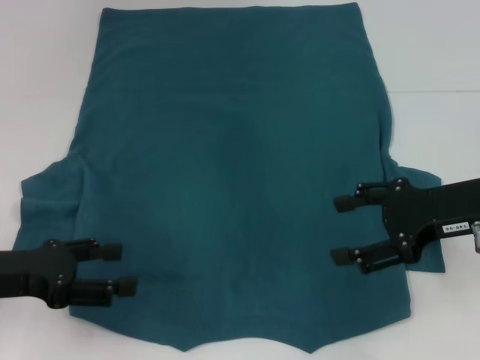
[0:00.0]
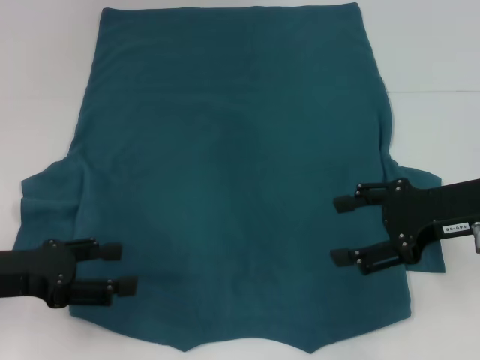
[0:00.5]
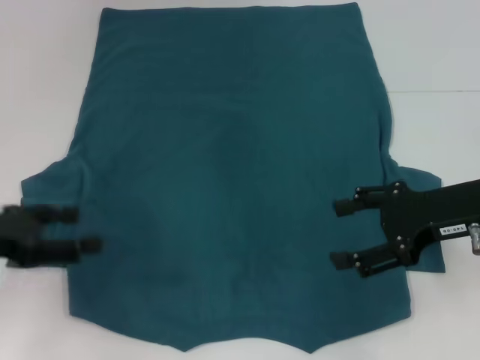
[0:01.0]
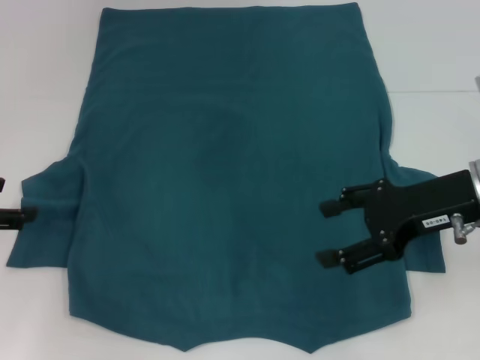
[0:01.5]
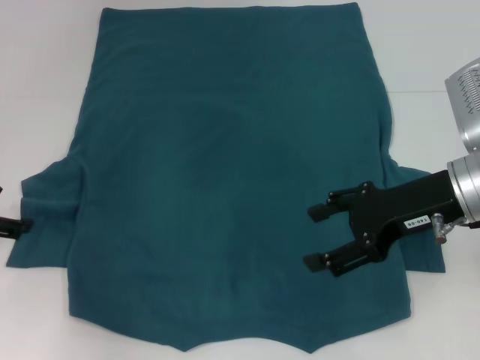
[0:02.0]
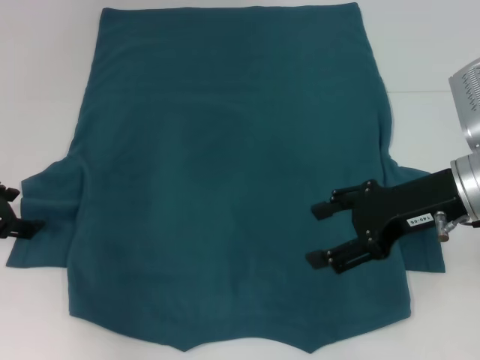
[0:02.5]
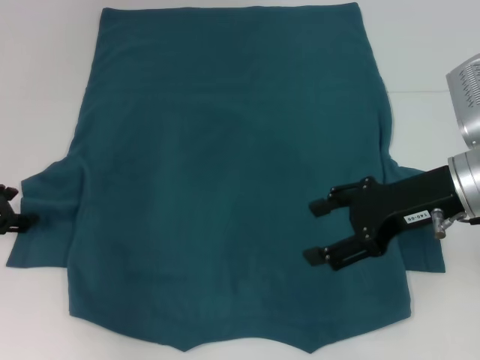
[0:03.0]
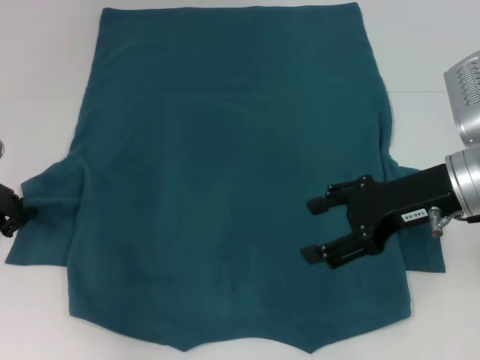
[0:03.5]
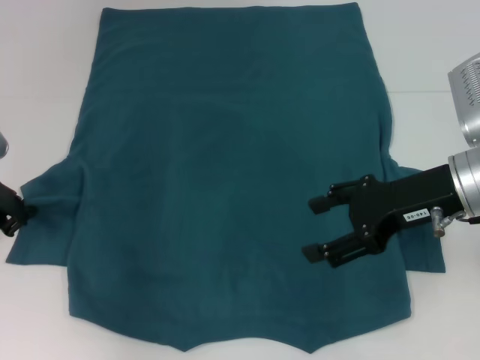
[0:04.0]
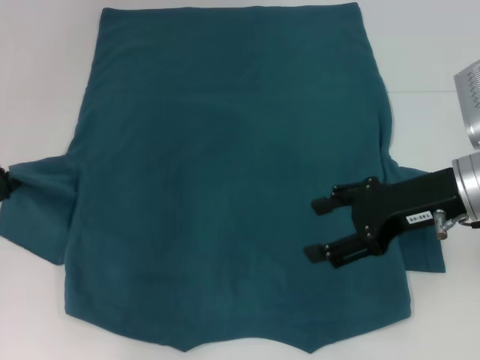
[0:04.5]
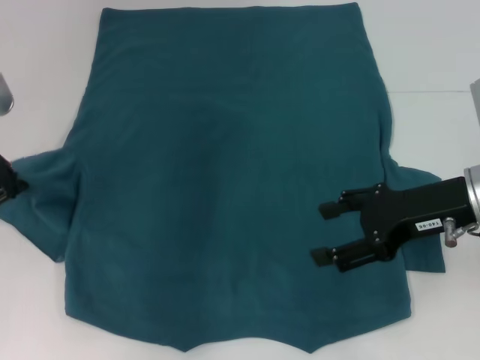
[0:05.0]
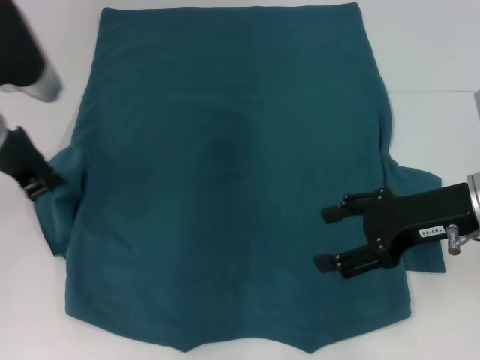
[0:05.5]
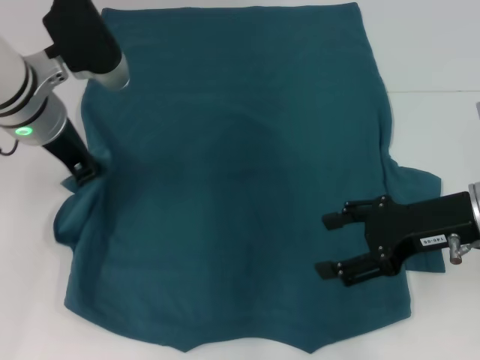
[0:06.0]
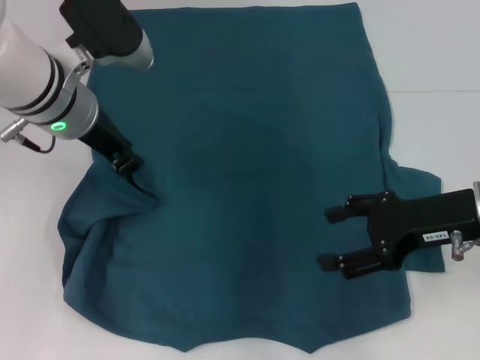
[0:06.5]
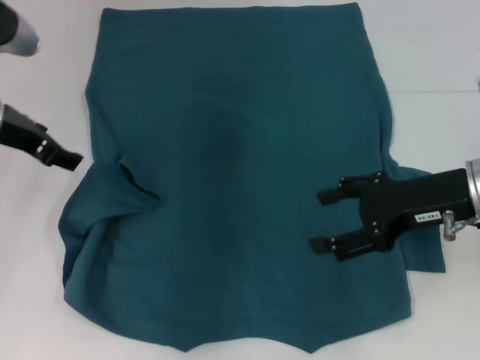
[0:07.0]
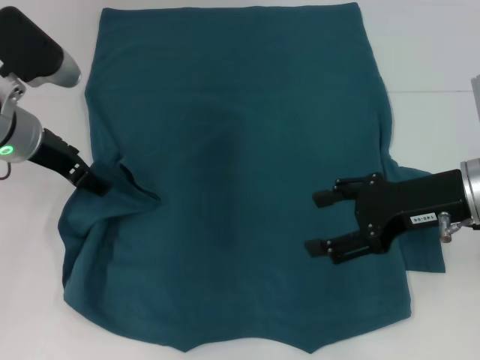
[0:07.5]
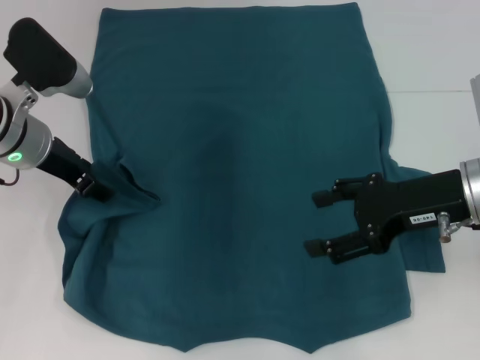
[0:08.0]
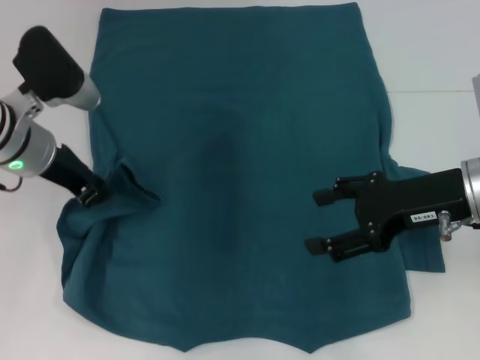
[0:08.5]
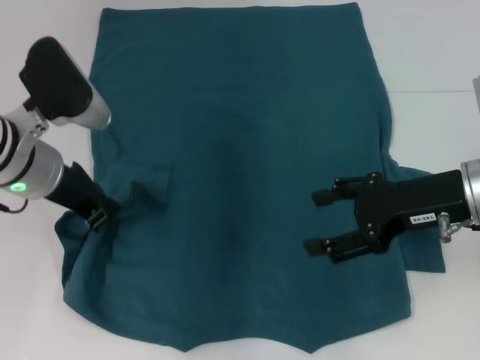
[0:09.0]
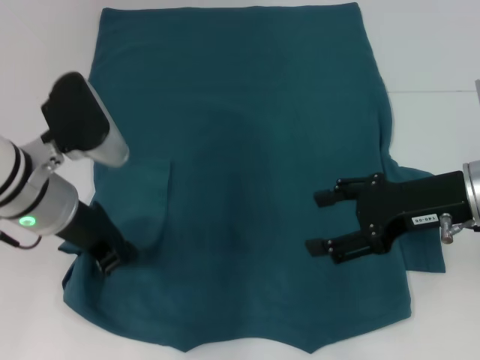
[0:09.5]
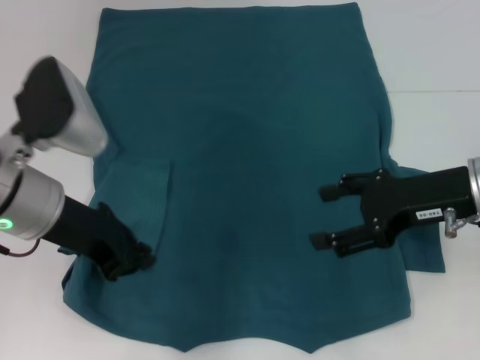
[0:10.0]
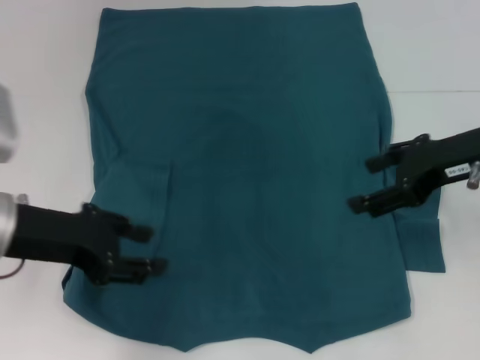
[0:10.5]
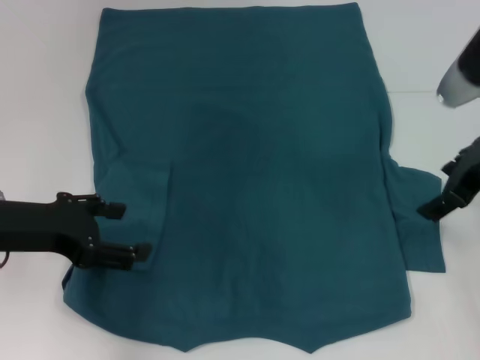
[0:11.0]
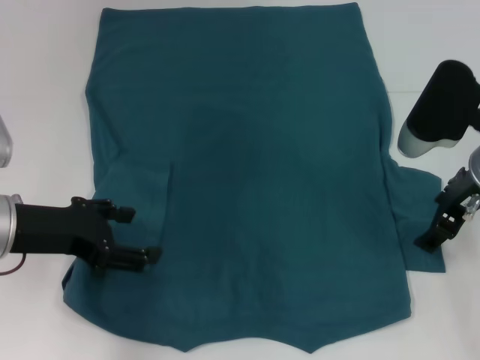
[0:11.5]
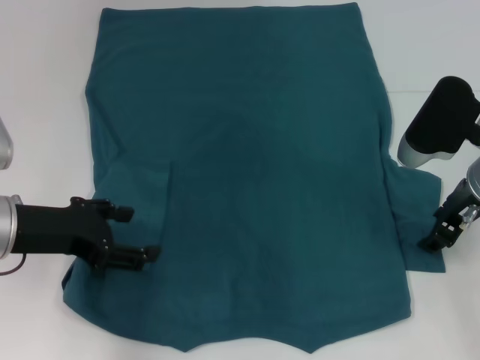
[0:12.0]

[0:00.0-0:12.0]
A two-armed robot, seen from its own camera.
Step, 0:00.0 to 0:10.0: Fold the bottom left sleeve with your left hand.
0:00.0 to 0:02.0: The left gripper heads forward and to the left, covering about 10 cm.
0:02.0 to 0:04.0: The left gripper changes place by approximately 5 cm, and closes up.
0:04.0 to 0:06.0: The left gripper goes about 15 cm to the right and upward.
0:06.0 to 0:08.0: The left gripper heads downward, covering some 5 cm, and opens up.
0:08.0 to 0:10.0: The left gripper goes roughly 10 cm backward, and closes.
0:10.0 to 0:12.0: The left gripper heads to the left, covering some 5 cm, and opens up.

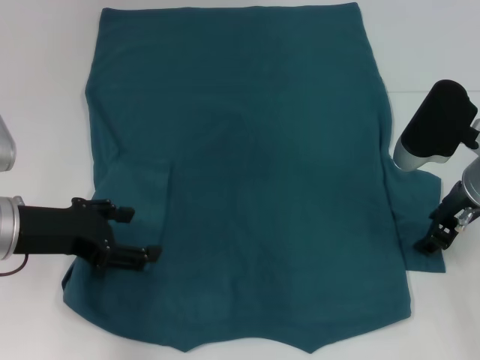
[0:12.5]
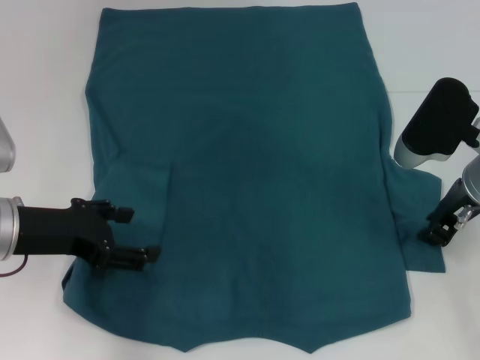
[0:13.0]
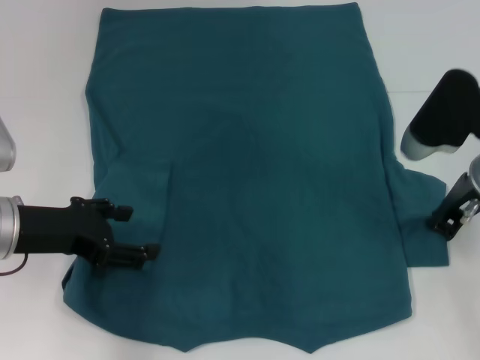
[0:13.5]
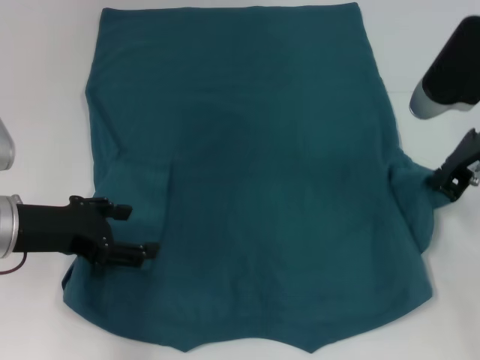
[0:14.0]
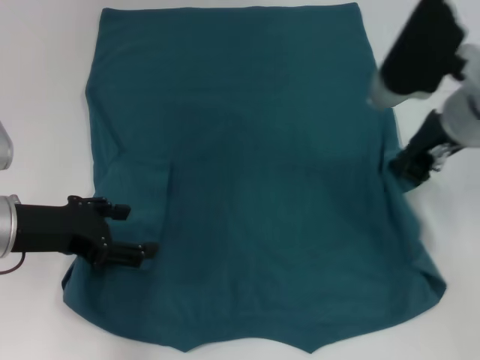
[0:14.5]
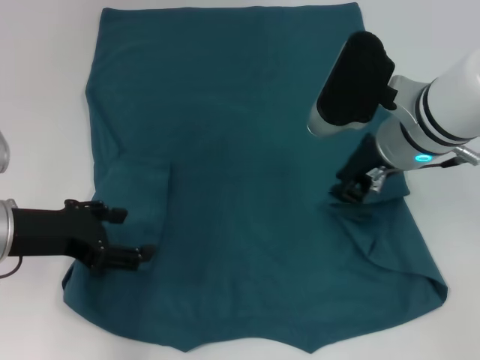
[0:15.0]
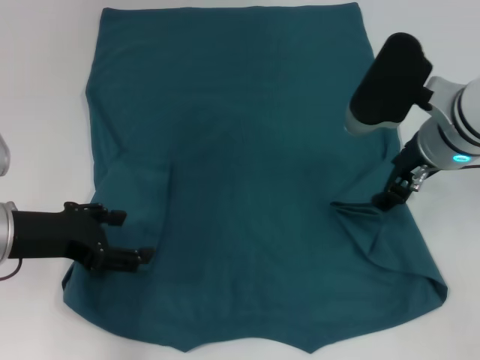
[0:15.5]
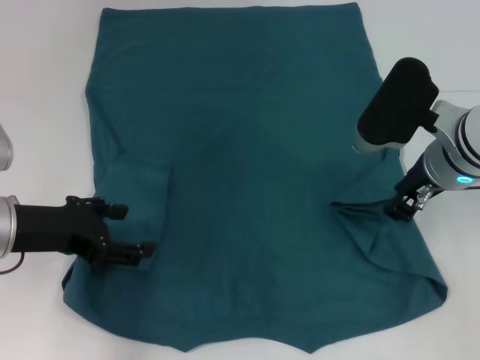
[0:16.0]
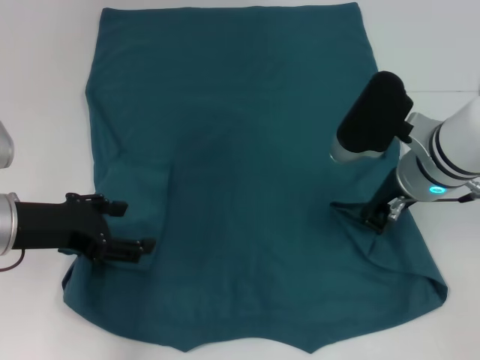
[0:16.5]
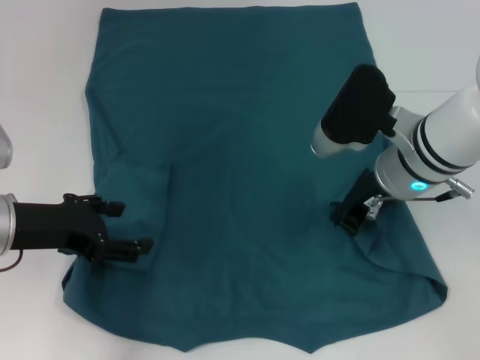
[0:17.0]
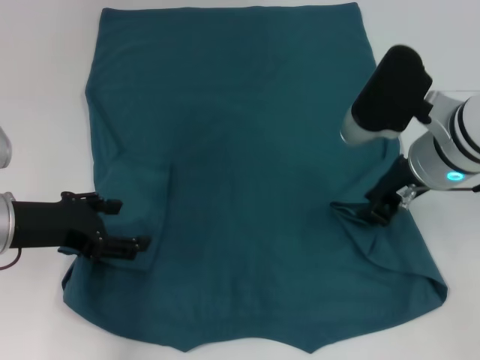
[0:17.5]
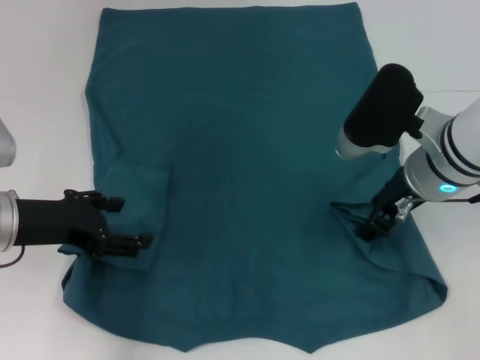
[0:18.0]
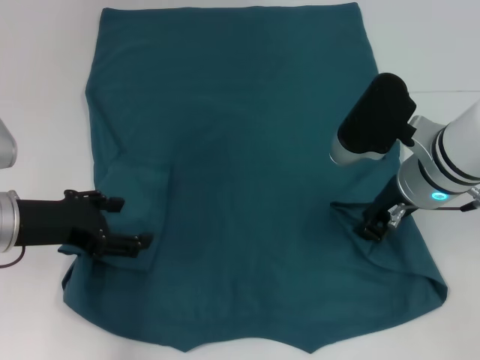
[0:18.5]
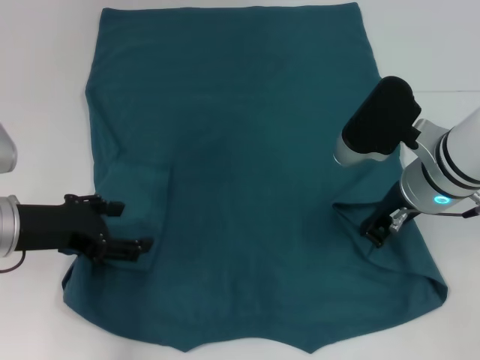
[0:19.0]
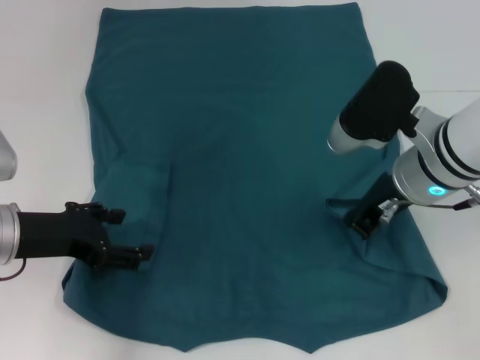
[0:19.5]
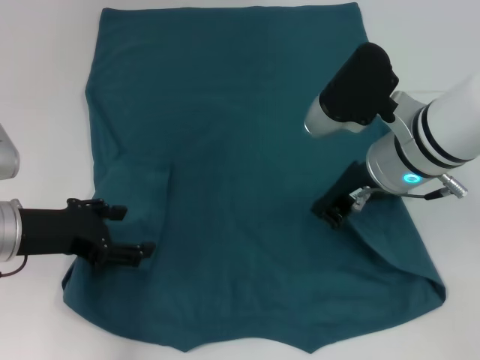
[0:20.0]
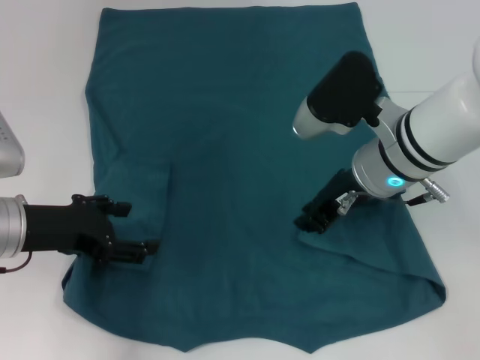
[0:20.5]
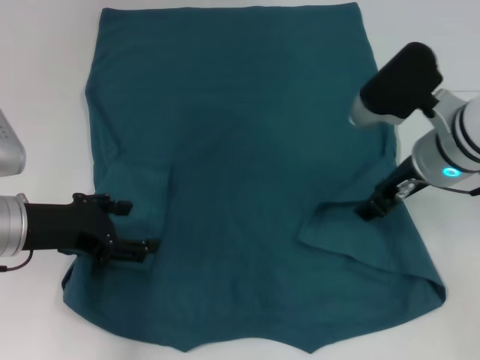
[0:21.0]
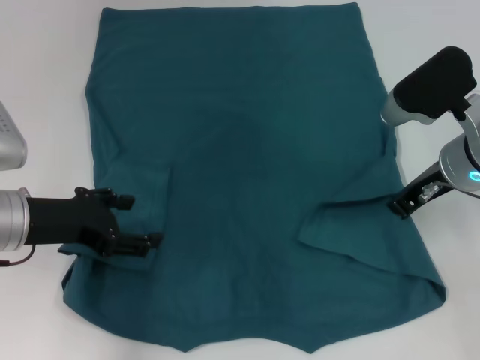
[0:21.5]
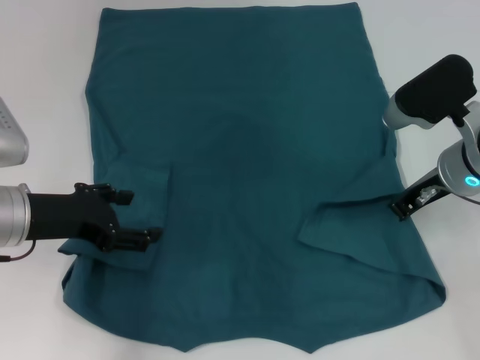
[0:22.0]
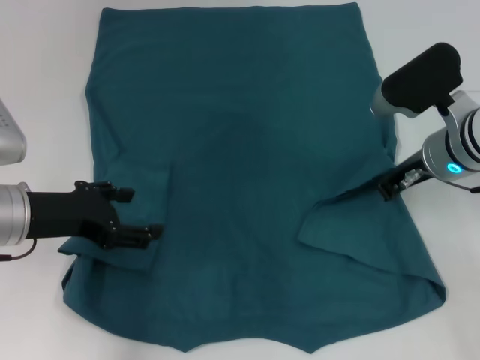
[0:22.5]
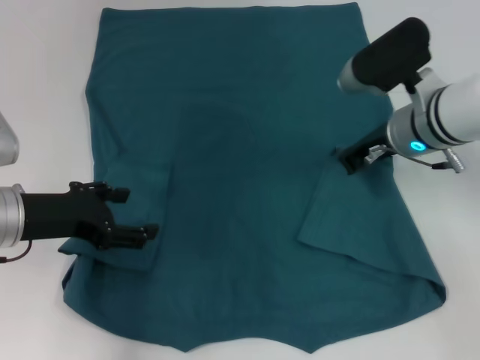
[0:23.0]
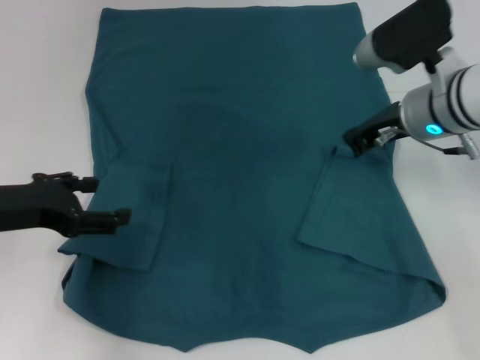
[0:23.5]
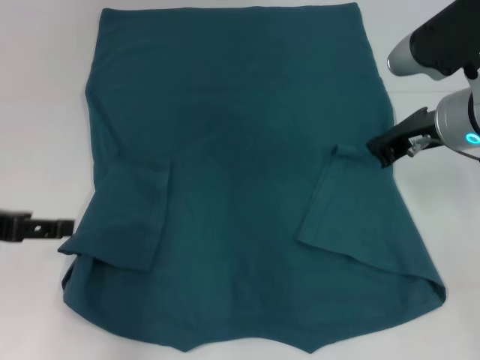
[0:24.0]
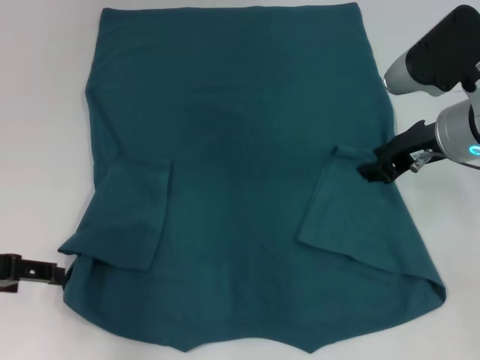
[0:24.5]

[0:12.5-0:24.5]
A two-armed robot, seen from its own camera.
Step, 0:12.5 to 0:24.0: Fold the bottom right sleeve to the right.
0:12.5 to 0:14.5: The right gripper goes approximately 5 cm upward, and closes up.
0:14.5 to 0:16.5: The right gripper goes about 5 cm downward, and opens, then closes once more.
0:16.5 to 0:18.5: The right gripper opens its fingers.
0:18.5 to 0:20.5: The right gripper closes.
0:20.5 to 0:22.5: The right gripper shifts approximately 10 cm to the right, and opens, then closes once more.
0:22.5 to 0:24.5: The right gripper moves some 5 cm, while the left gripper is displaced to the left and backward by roughly 10 cm.

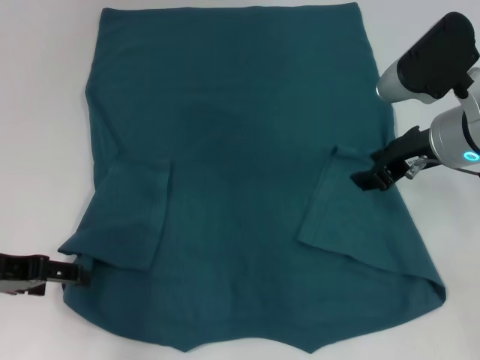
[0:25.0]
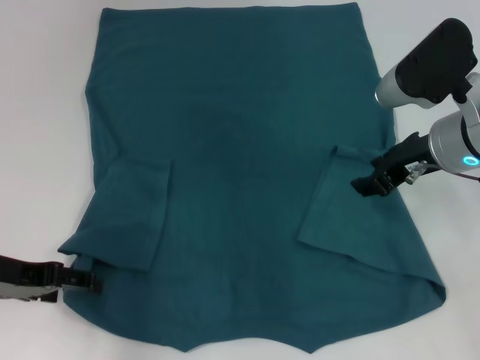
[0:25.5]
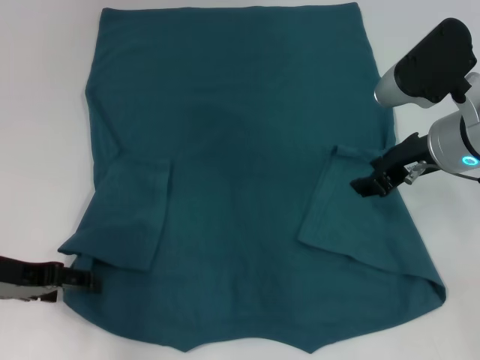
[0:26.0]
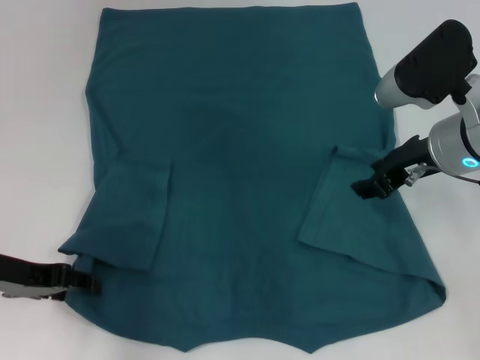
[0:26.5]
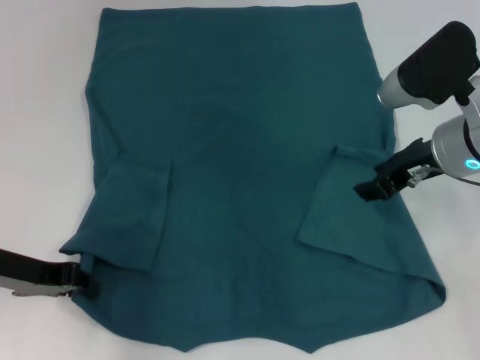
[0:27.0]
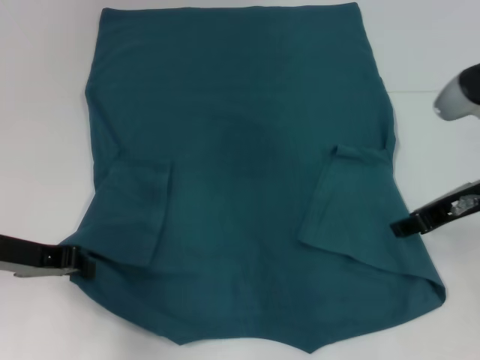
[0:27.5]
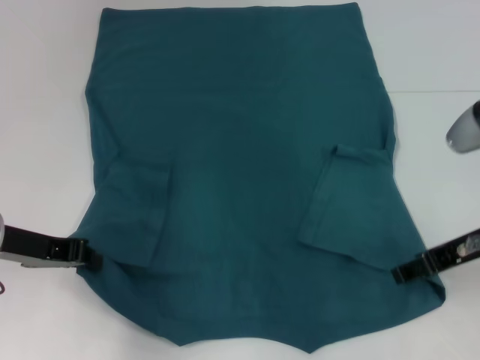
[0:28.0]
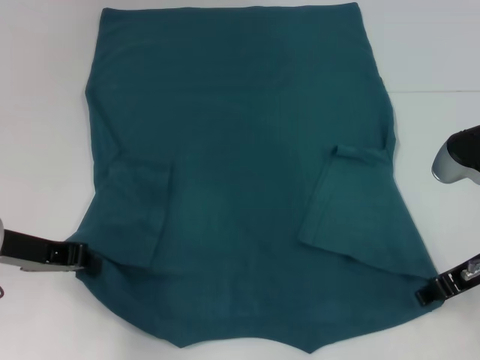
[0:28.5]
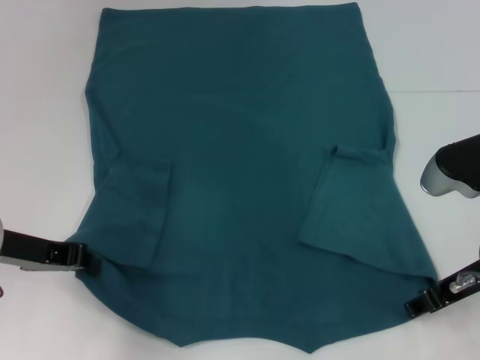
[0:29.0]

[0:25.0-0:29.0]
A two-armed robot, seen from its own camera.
Step, 0:25.0 to 0:27.5: Grab the bottom left corner with your left hand.
0:25.0 to 0:27.0: The left gripper closes up.
0:27.0 to 0:29.0: The left gripper closes its fingers, while the right gripper travels backward by about 10 cm.
